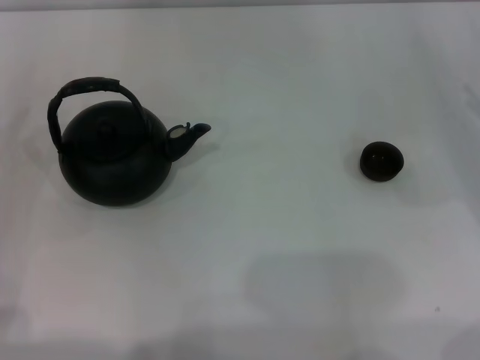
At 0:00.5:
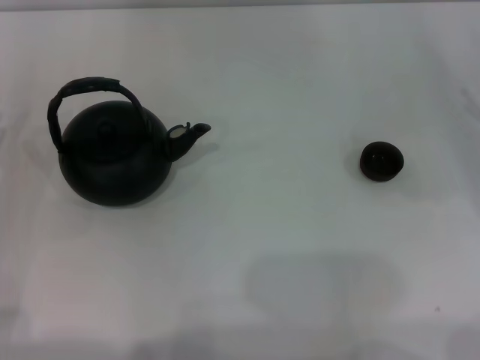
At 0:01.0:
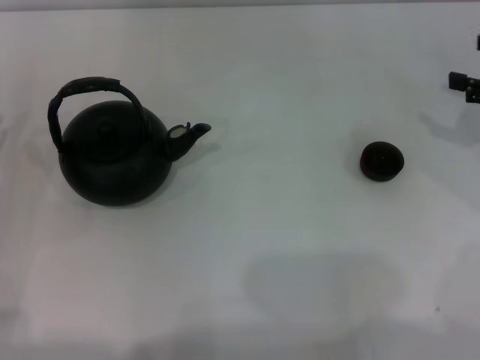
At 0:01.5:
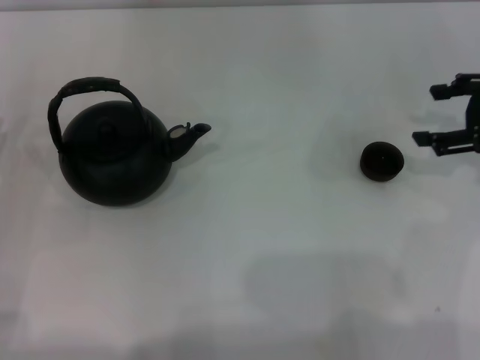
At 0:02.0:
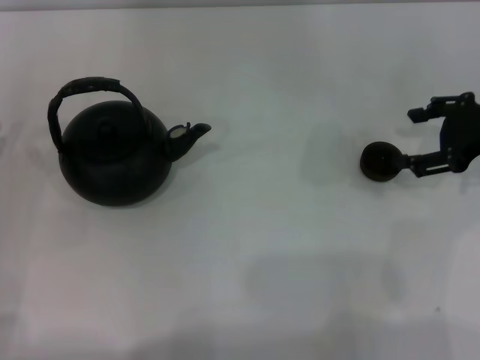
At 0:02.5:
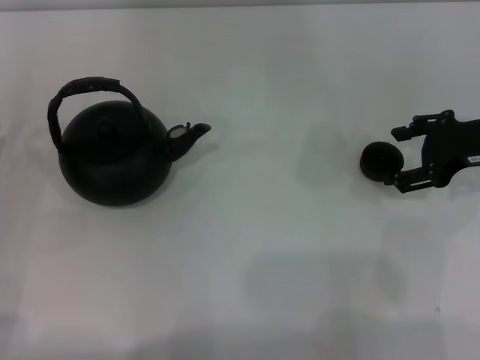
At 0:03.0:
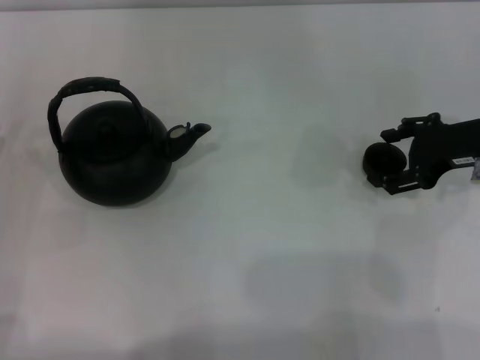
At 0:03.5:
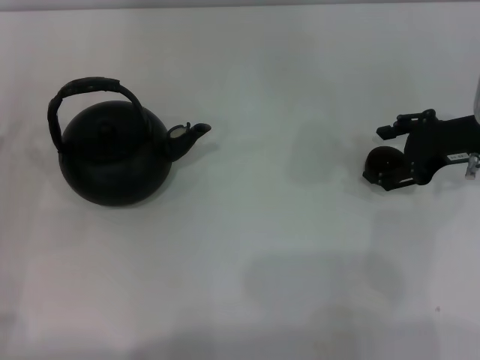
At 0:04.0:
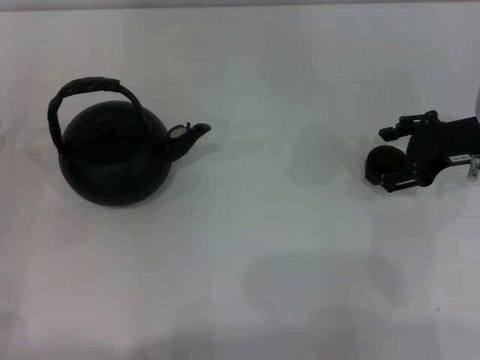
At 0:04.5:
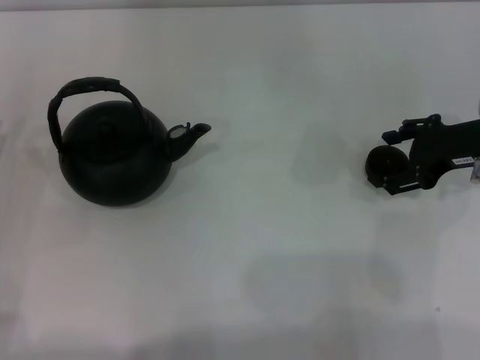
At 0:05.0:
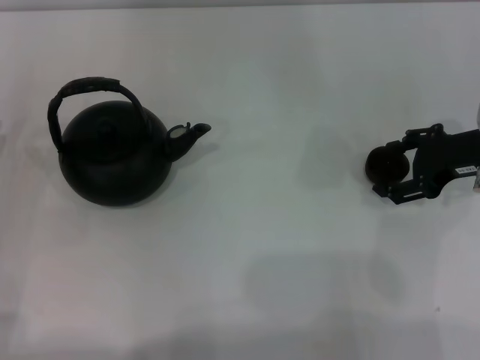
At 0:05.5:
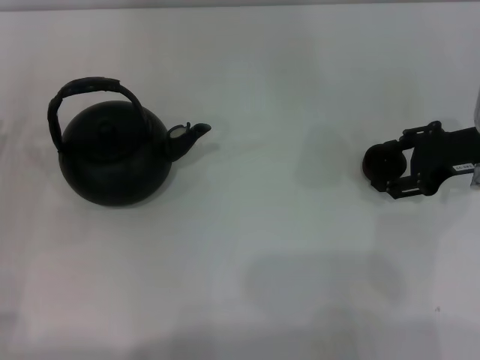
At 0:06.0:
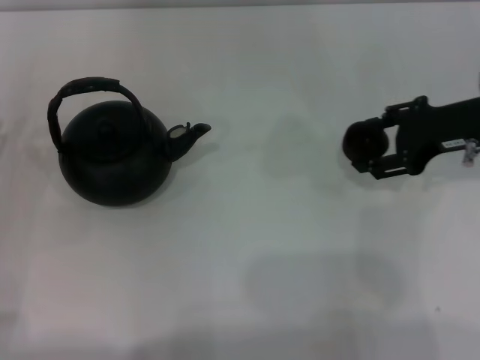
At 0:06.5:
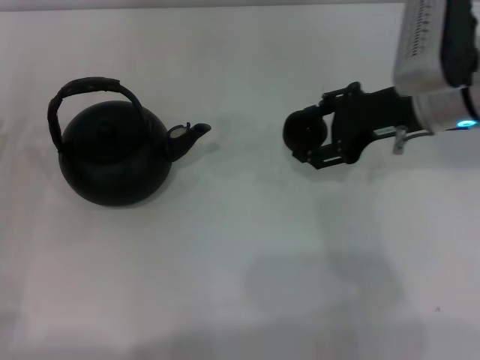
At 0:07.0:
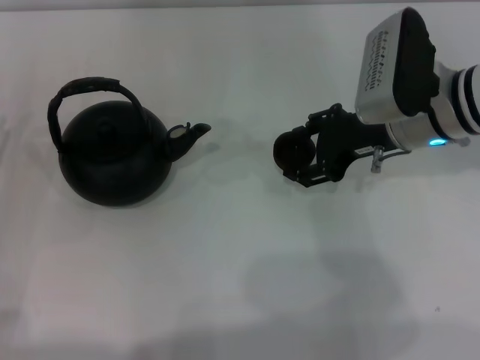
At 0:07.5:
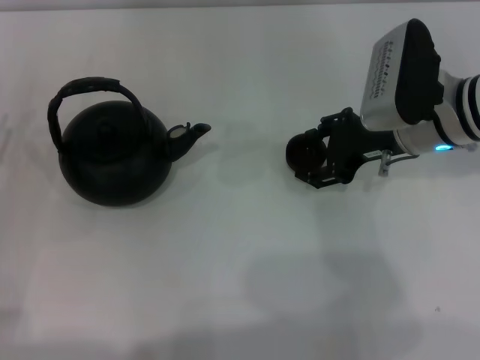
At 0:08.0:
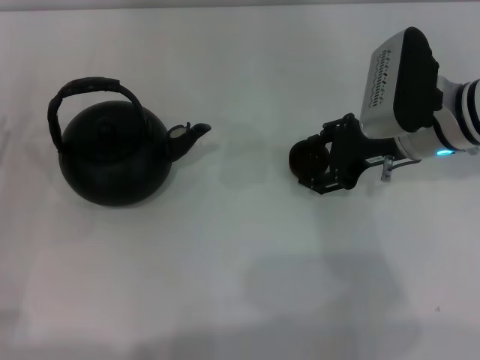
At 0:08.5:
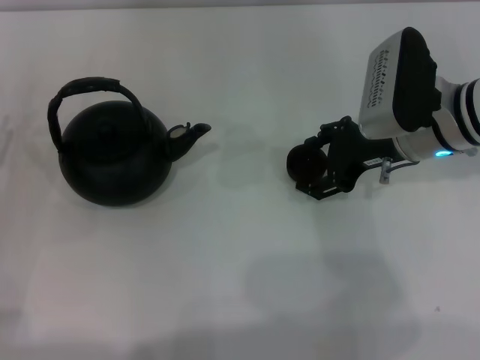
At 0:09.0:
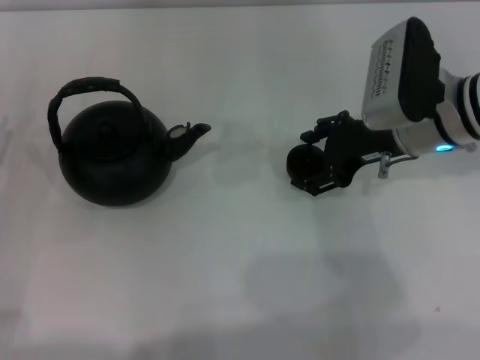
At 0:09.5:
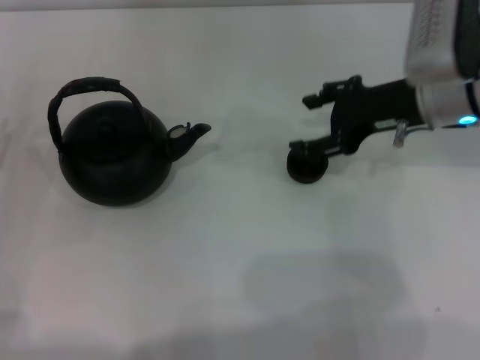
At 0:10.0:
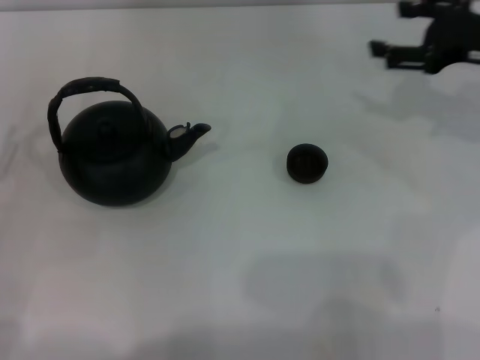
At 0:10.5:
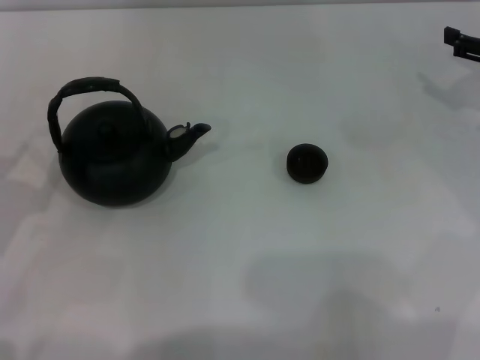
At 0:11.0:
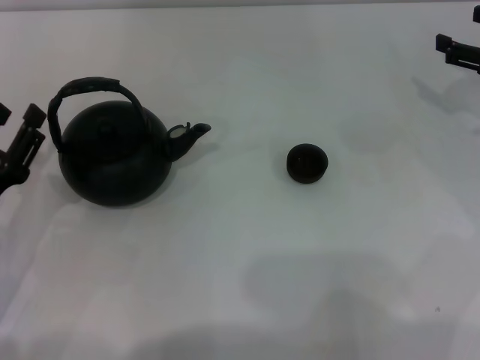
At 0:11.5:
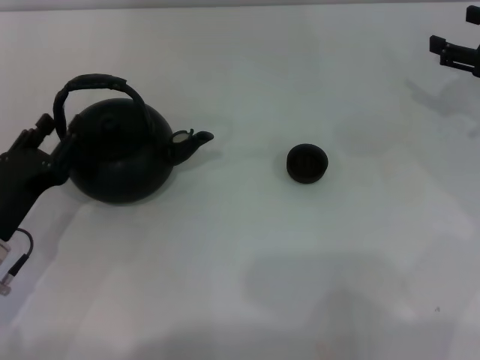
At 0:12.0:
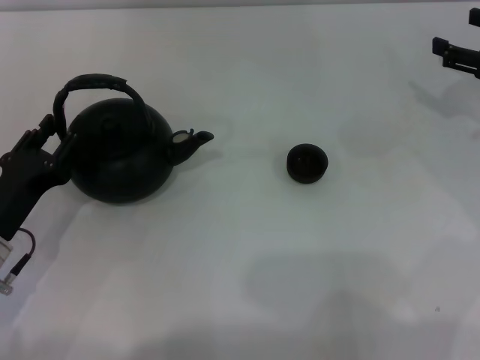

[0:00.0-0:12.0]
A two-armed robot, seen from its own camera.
Task of the whole recording: Grasp the handle of the teapot with one hand and pour tea into the teacup.
Step, 0:00.0 to 0:05.5: Pick up the teacup with the right gripper.
Step, 0:06.0 to 0:09.5: Place the teacup in the center of view with the right gripper.
0:00.0 to 0:02.0: The right gripper moves to the left and upward, approximately 10 cm.
0:02.0 to 0:04.0: The grippers make only small movements.
0:04.0 to 0:06.0: The right gripper closes its fingers.
0:06.0 to 0:08.0: The right gripper shifts some 5 cm to the left.
0:08.0 to 0:10.0: The right gripper travels to the right and upward by roughly 10 cm, and opens.
0:10.0 to 0:12.0: The right gripper is displaced to the right by about 5 cm. Meanwhile the left gripper is displaced to the right by about 10 cm.

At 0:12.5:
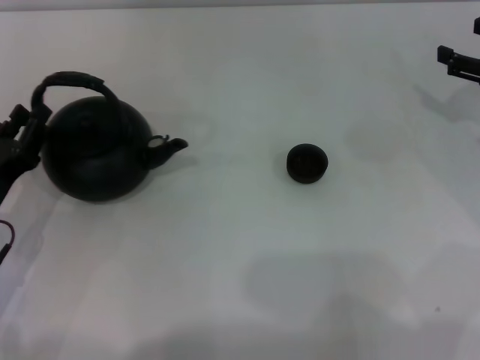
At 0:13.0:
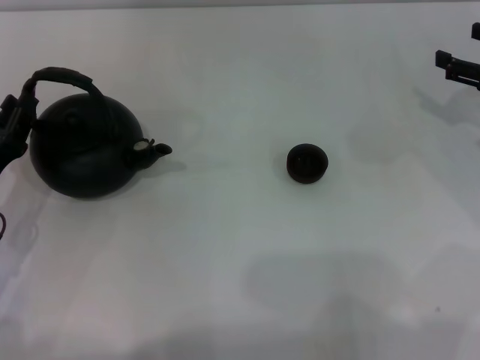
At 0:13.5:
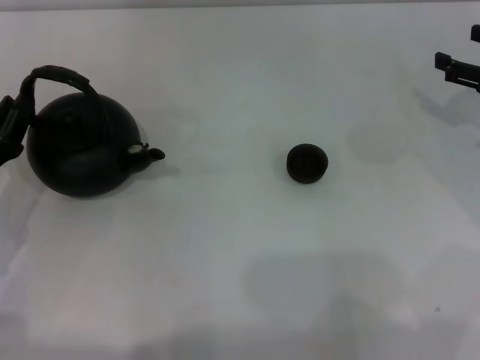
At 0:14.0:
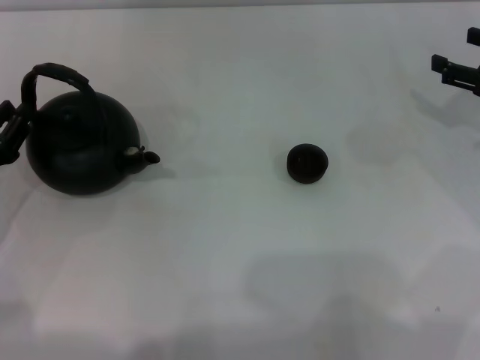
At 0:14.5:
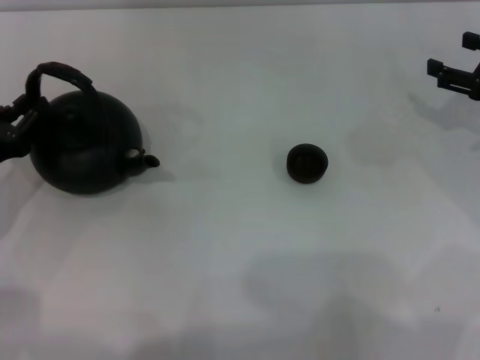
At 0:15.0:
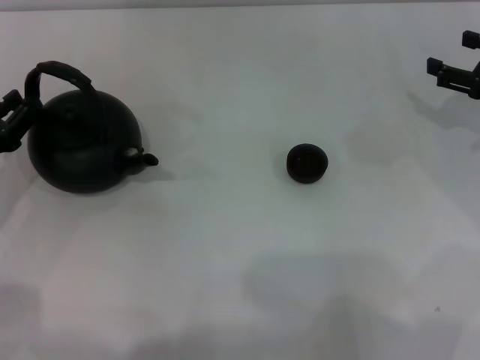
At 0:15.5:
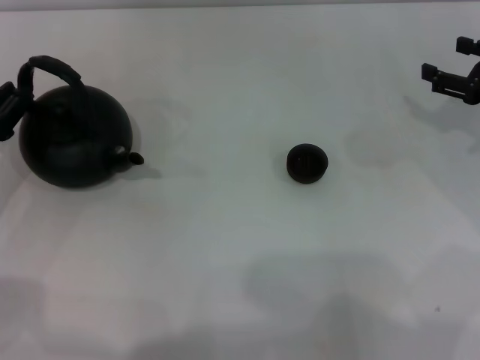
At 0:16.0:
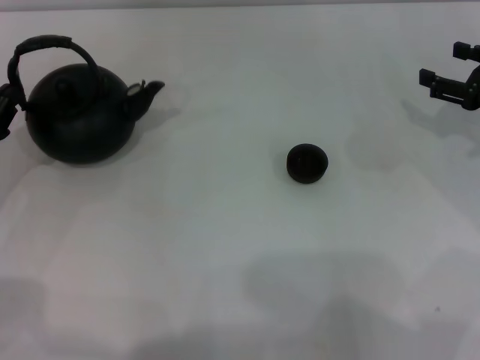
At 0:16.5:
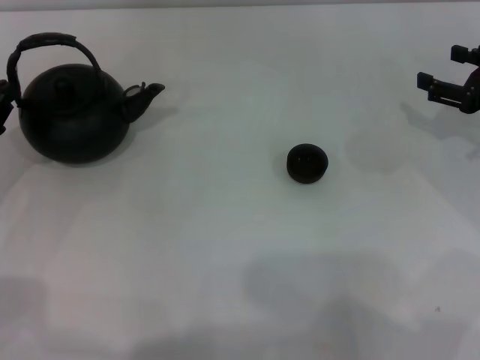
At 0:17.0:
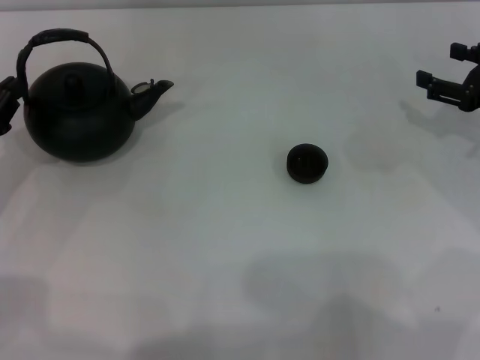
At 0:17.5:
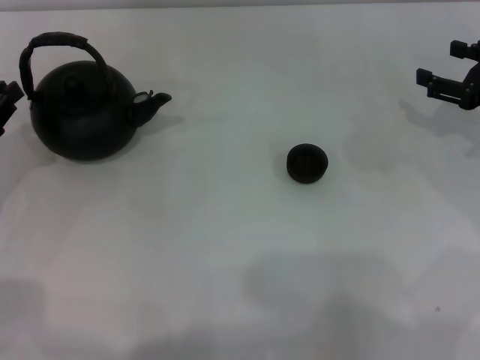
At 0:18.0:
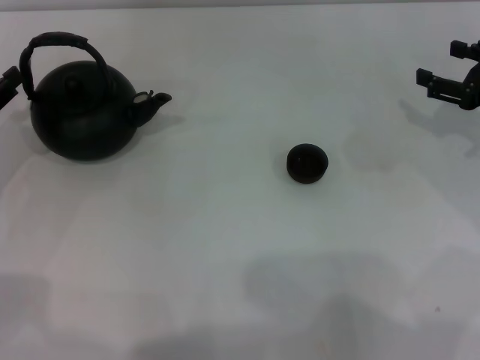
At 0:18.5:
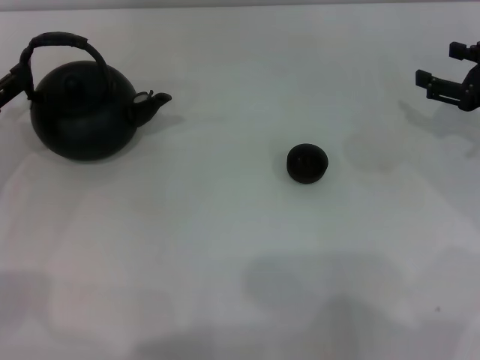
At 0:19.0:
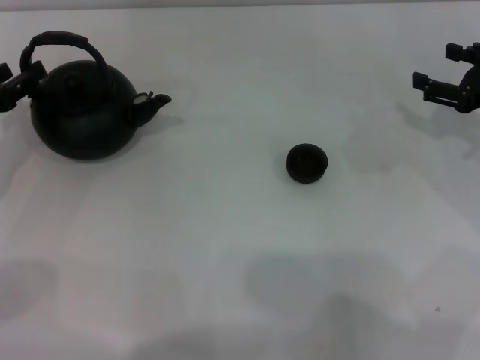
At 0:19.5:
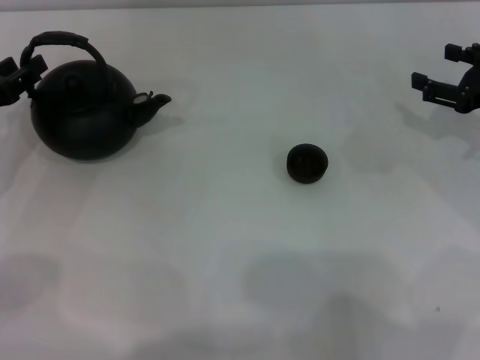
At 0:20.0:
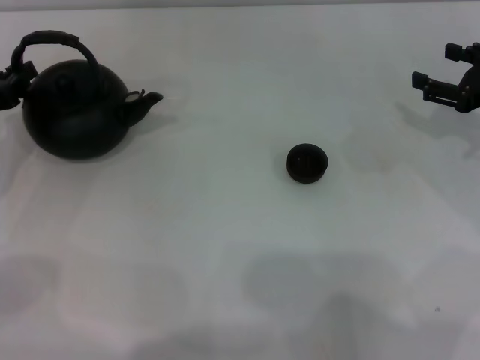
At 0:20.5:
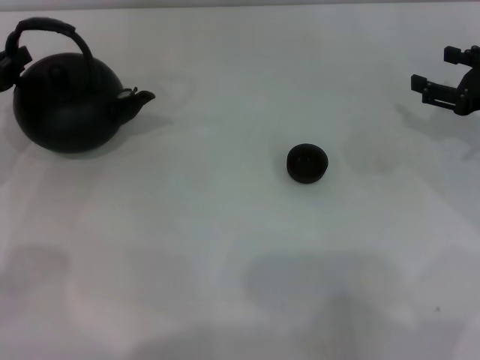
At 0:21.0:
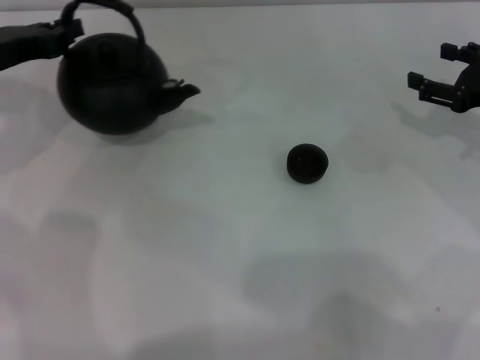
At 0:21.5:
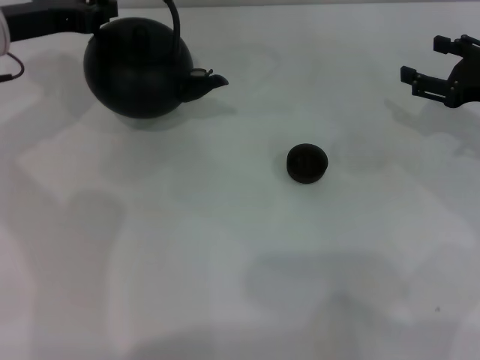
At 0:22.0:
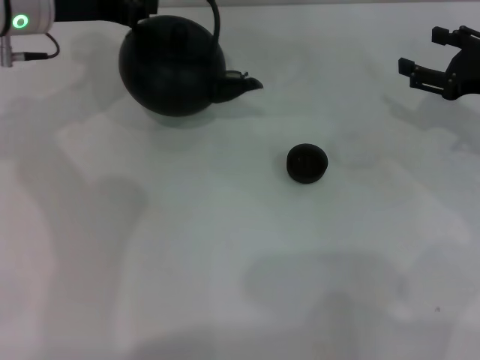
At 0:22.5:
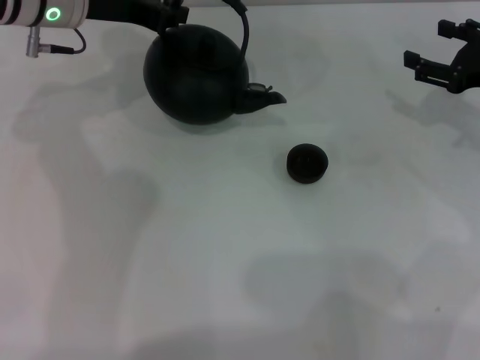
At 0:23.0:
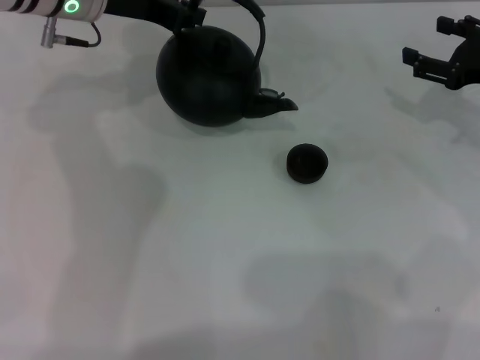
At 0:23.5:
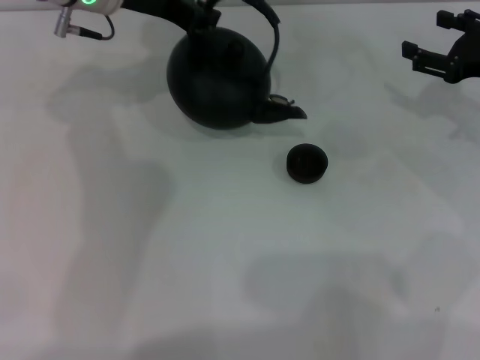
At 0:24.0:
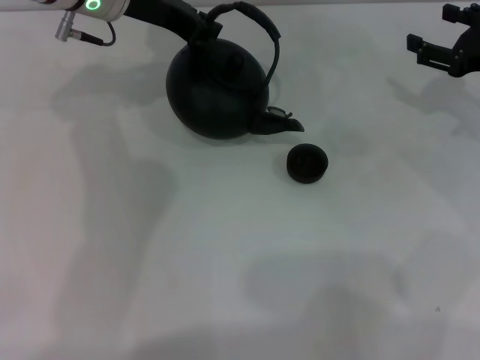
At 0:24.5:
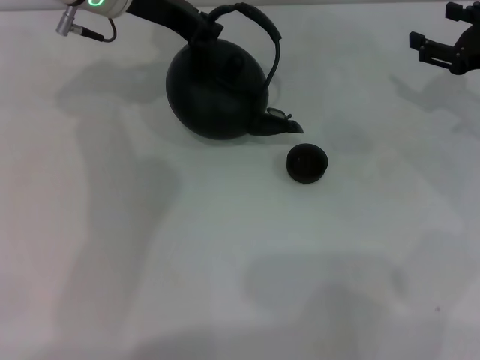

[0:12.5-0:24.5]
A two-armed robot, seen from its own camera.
Task of the whole recording: Grasp the handle of the teapot with one hand and pour tea into the teacup.
Step, 0:12.5 to 0:22.0: Pick up the teapot with the left gripper.
0:12.5 to 0:14.5: The left gripper changes place by roughly 5 cm.
0:14.5 to 0:16.5: The grippers make only small movements.
0:16.5 to 0:18.5: The left gripper opens its fingers.
0:18.5 to 0:20.5: The left gripper closes its fingers.
0:20.5 to 0:22.5: The left gripper travels to the right, forward and upward by some 20 cm.
0:22.5 to 0:24.5: The left gripper ends up roughly 5 cm from where it was.

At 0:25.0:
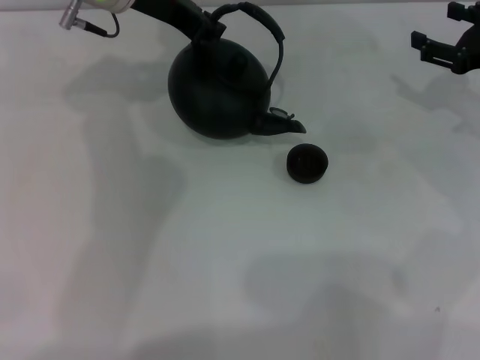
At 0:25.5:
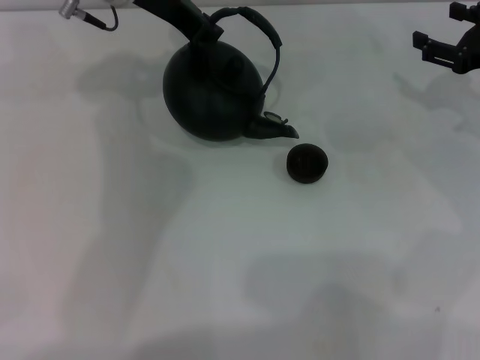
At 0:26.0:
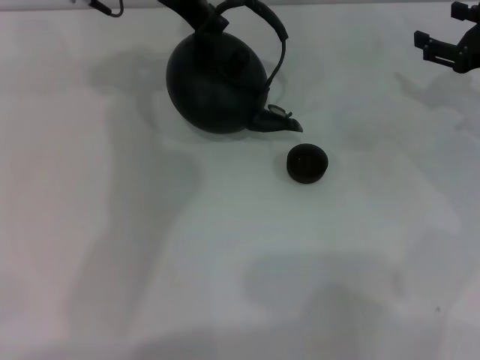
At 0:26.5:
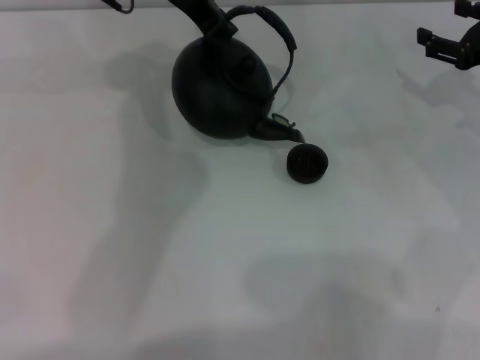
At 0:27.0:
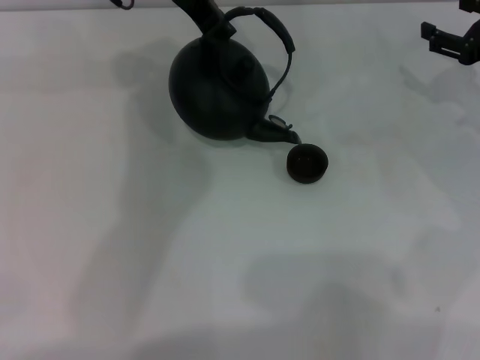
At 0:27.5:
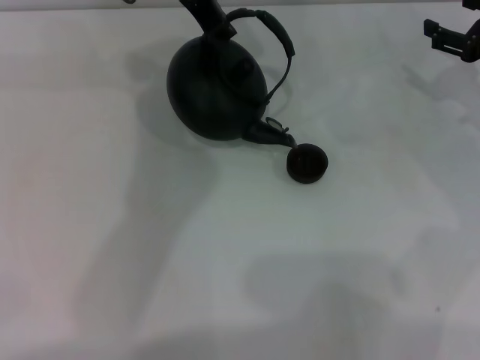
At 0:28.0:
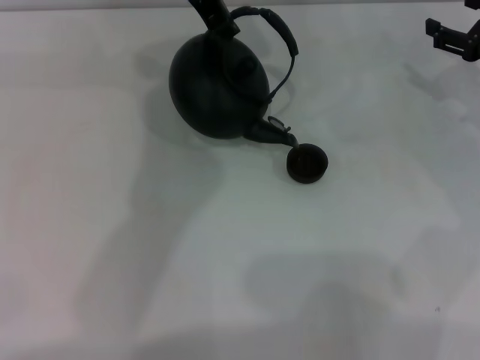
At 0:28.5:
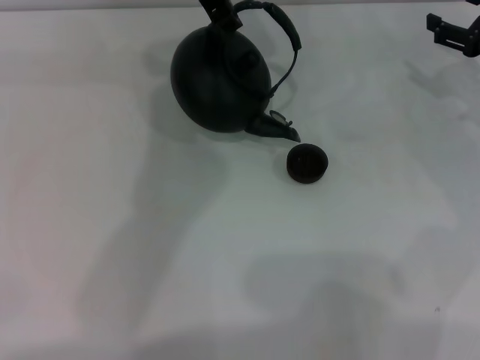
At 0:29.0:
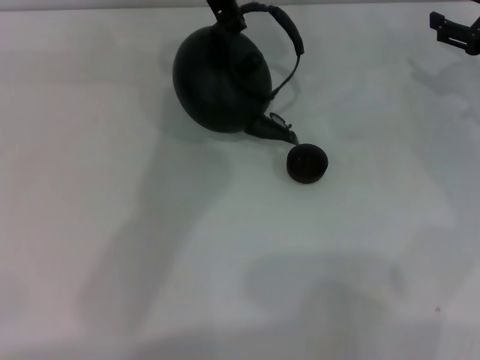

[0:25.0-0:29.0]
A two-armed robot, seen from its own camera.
Task of the whole recording: Grasp the handle of the teapot with one hand and pour tea into the teacup.
0:25.0 to 0:27.0: The left gripper moves approximately 5 cm.
0:27.0 to 0:29.0: There are only small adjustments of the grippers.
